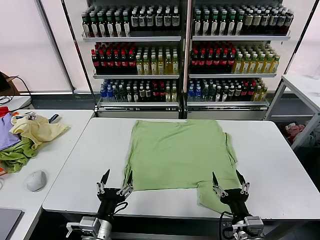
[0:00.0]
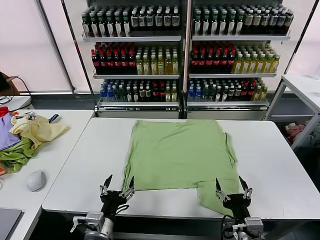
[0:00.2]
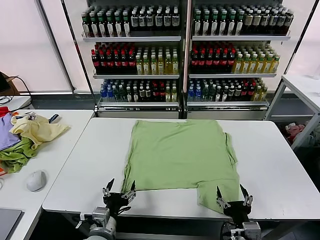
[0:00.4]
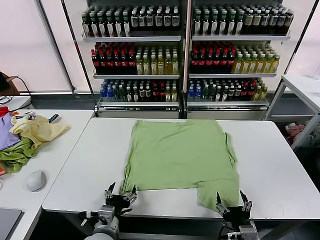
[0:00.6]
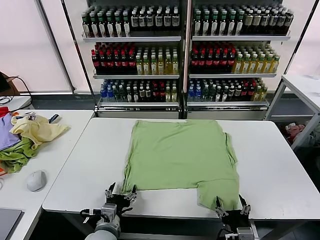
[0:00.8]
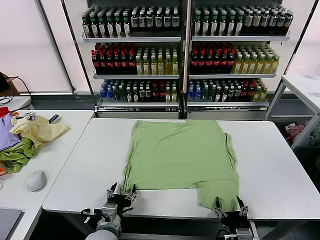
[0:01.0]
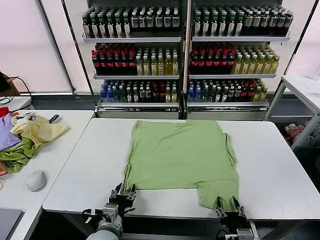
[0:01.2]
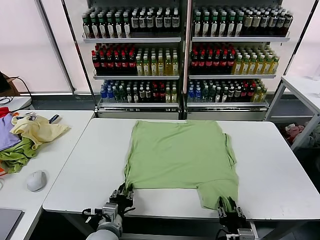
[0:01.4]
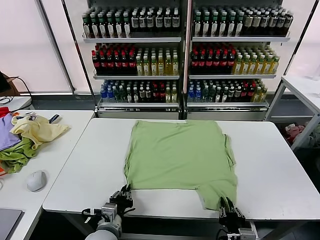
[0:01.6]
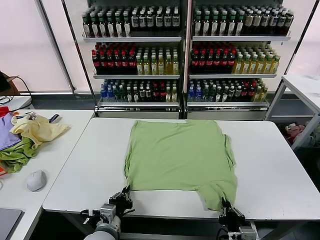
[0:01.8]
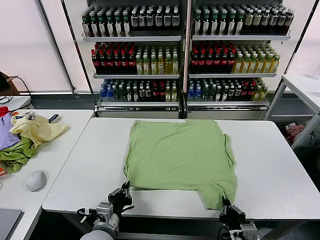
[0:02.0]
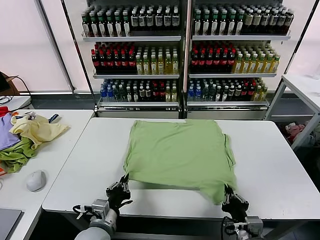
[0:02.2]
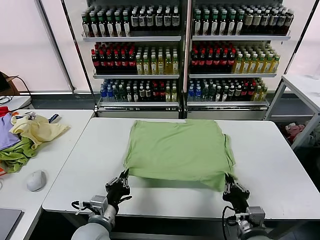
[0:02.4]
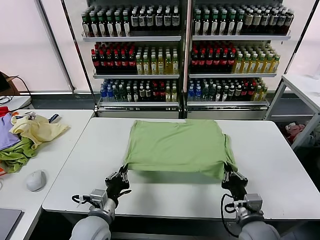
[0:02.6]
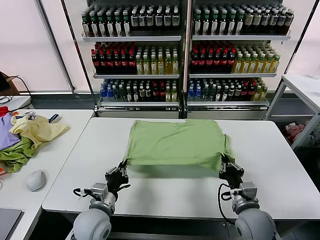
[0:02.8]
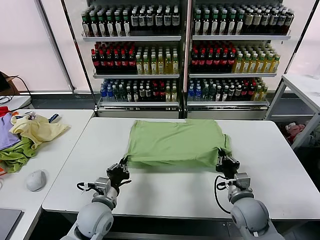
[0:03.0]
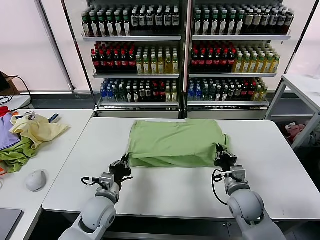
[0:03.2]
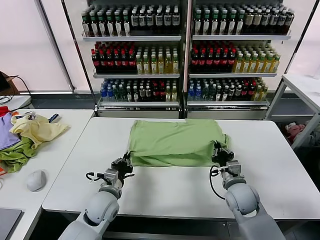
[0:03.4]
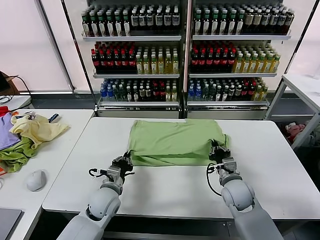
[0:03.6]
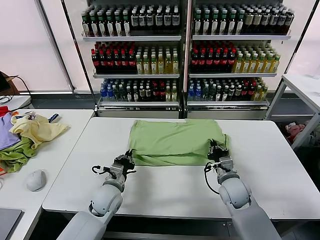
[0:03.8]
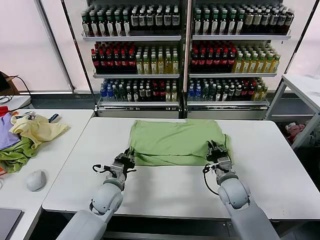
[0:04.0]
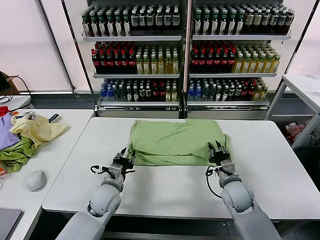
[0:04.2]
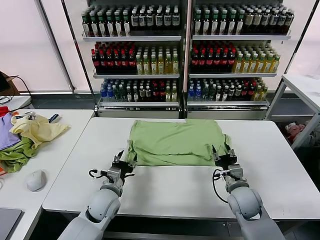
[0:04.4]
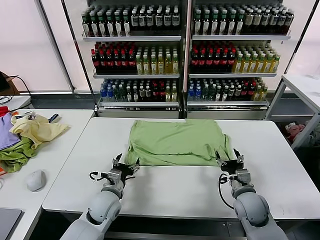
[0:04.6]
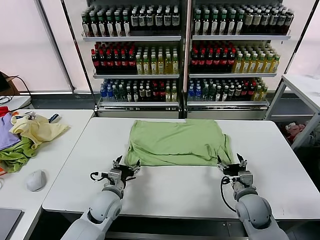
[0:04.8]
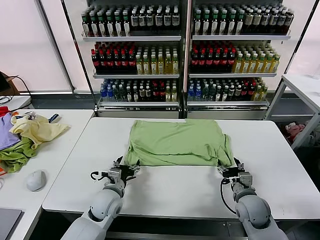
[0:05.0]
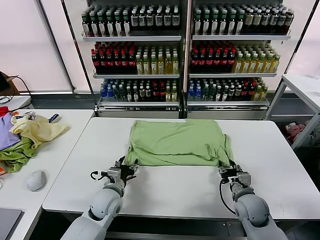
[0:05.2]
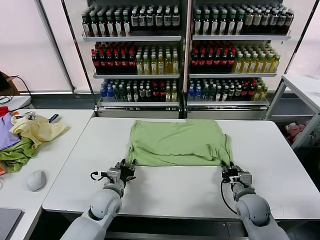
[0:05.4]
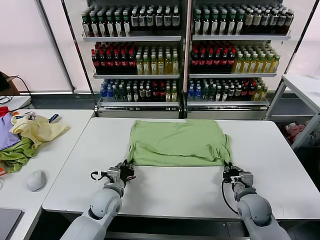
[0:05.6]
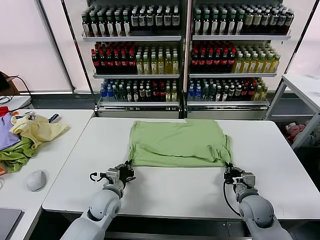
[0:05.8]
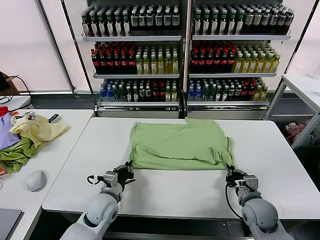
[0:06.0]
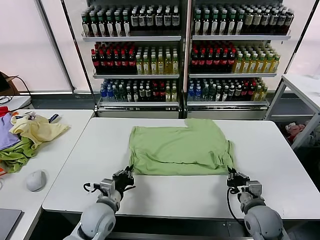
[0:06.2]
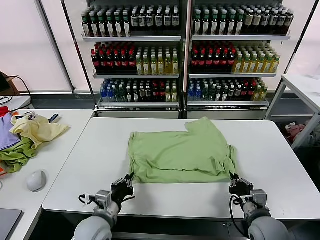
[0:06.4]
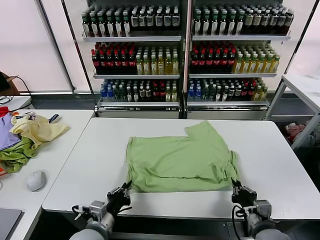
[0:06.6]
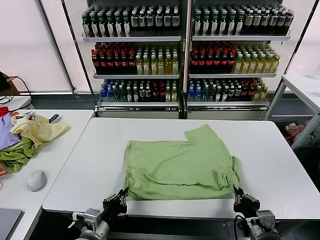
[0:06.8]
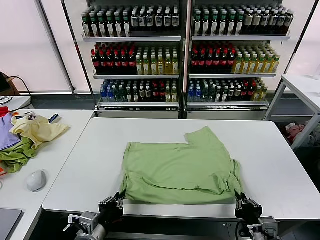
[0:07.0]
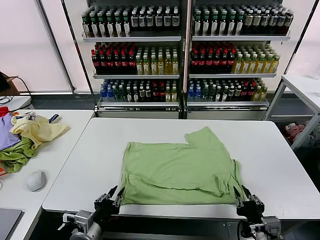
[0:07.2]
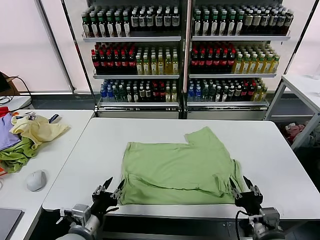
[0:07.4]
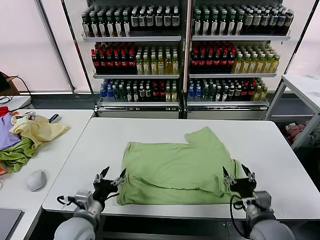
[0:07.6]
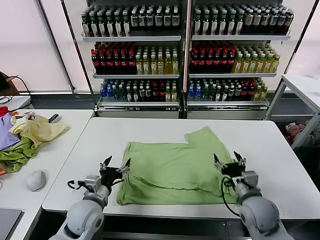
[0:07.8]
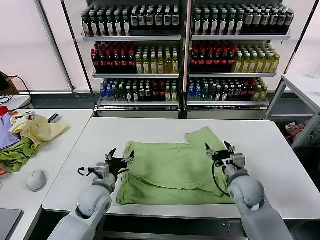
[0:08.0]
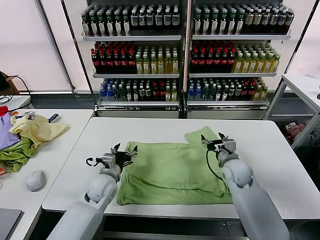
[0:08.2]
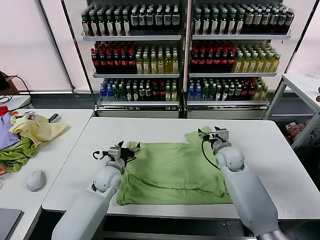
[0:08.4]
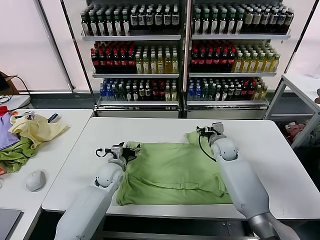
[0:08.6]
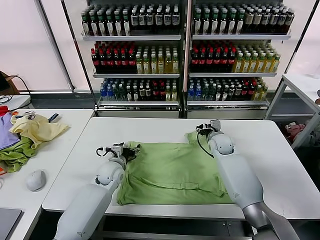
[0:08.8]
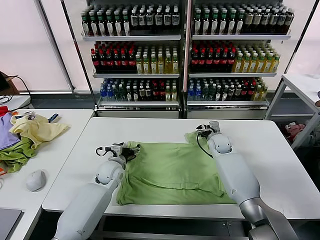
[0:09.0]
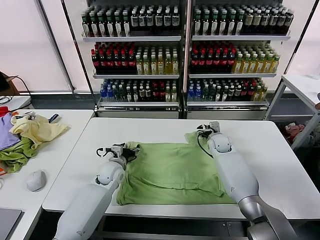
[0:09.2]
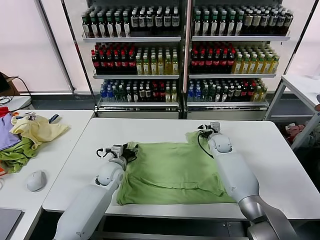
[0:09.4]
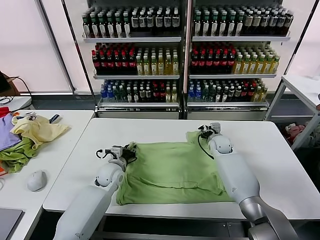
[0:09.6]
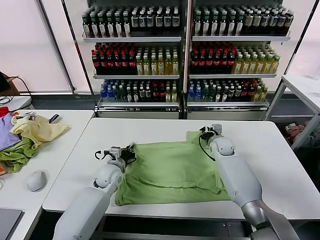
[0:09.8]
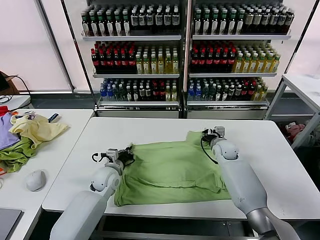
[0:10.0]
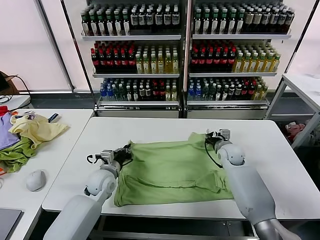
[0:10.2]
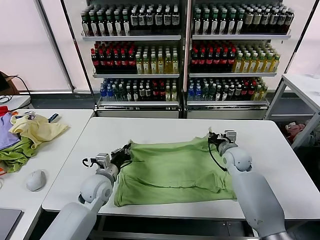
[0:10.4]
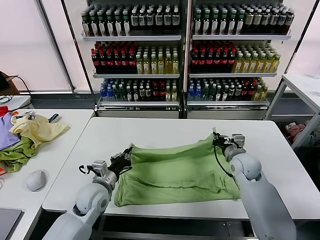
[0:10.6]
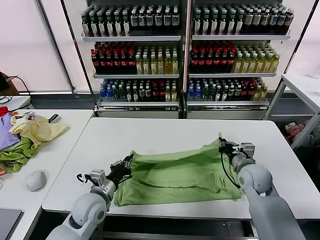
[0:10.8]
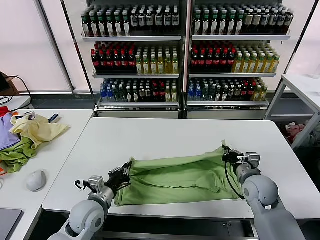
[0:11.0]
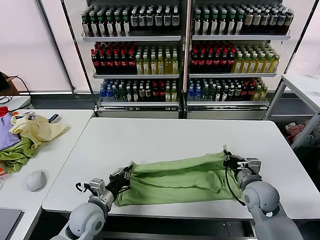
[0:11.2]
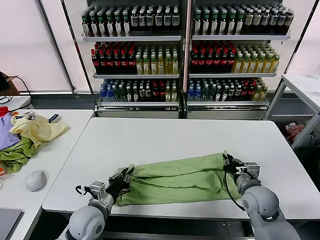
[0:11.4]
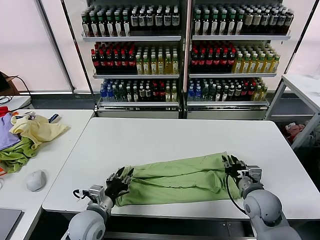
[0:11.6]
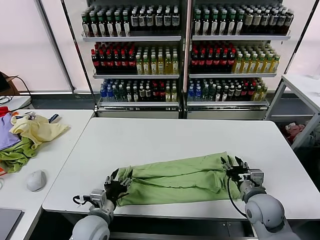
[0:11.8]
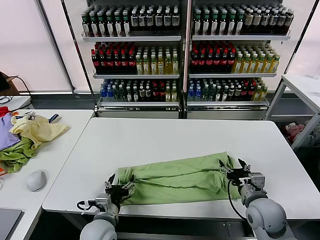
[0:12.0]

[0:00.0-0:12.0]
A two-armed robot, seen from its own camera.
Task of the whole recording: fold and organize the clothes.
Step, 0:00.0 to 0:01.8: use both grippers simultaneously to clamp the lower edge of the clothing fabric.
Step, 0:02.0 to 0:04.2: use both grippers to drag the lower edge of the fabric forward and fold it over the upper edge.
Step, 0:04.4 to 0:07.2: Drag the clothes downward with both gripper.
Step, 0:07.4 to 0:10.0: use both grippers simultaneously to clamp the upper edge of the clothing fabric.
Step, 0:10.2 to 0:11.6: use both grippers to drag the upper edge of the fabric backward and fold it over the lower edge.
0:01.6 to 0:03.0: The right gripper moves forward, some 15 cm; the left gripper heads forward, covering approximately 5 cm.
0:03.0 to 0:04.4: The right gripper opens up. Meanwhile the left gripper goes approximately 5 cm forward, and opens.
0:04.4 to 0:06.0: The right gripper closes up, while the left gripper closes up.
0:06.0 to 0:07.6: The left gripper heads backward, covering roughly 10 cm, and opens up. The right gripper heads upward and backward, covering some 5 cm, and opens up.
0:07.6 to 0:09.0: The two grippers go about 30 cm forward.
0:09.0 to 0:10.4: The grippers both shift backward by some 10 cm. The right gripper closes up. The left gripper closes its fingers.
0:10.4 to 0:12.0: Both grippers travel together backward, approximately 15 cm. The right gripper opens its fingers; the left gripper opens.

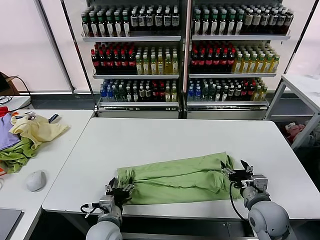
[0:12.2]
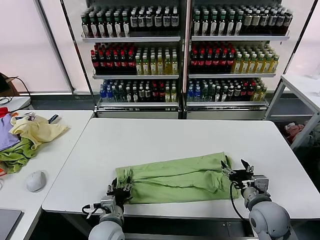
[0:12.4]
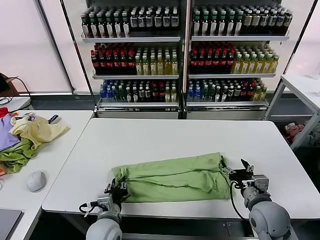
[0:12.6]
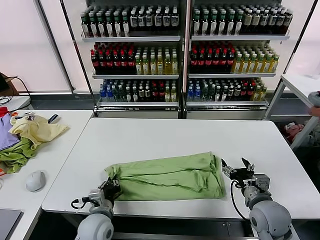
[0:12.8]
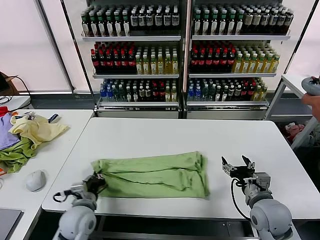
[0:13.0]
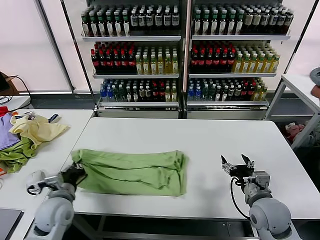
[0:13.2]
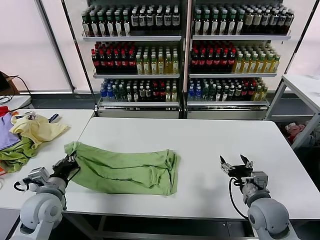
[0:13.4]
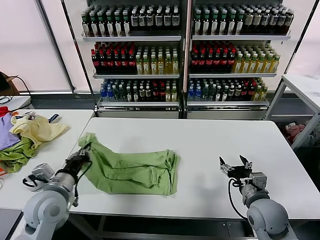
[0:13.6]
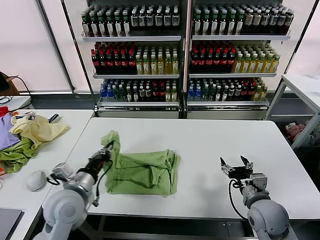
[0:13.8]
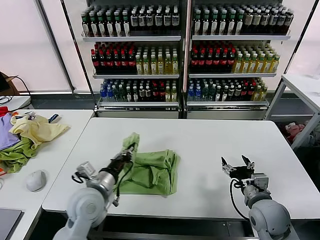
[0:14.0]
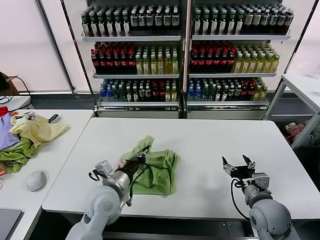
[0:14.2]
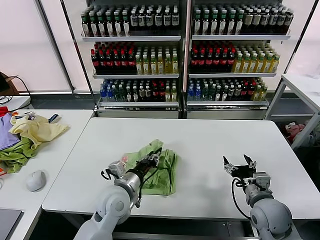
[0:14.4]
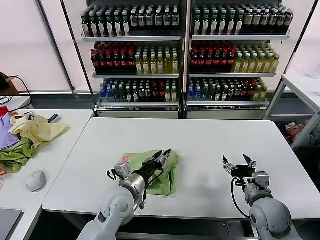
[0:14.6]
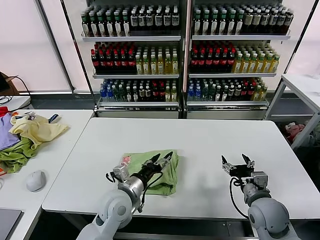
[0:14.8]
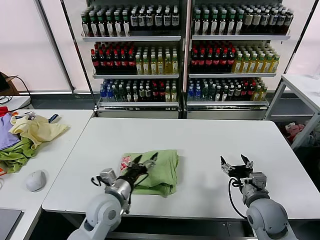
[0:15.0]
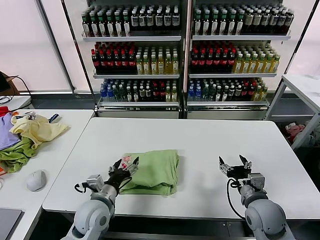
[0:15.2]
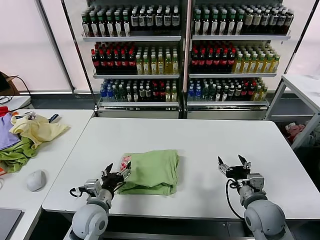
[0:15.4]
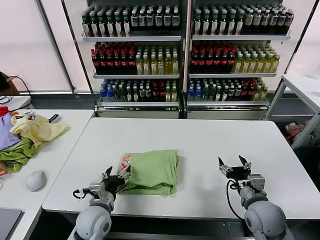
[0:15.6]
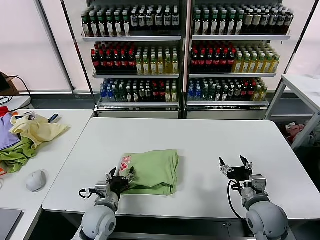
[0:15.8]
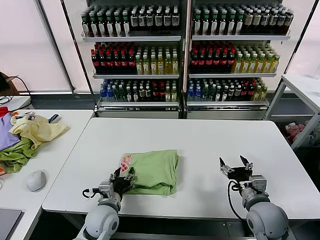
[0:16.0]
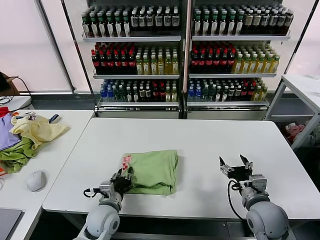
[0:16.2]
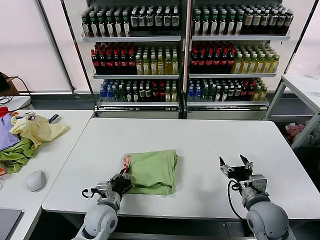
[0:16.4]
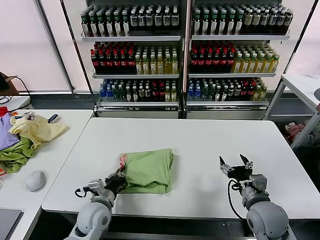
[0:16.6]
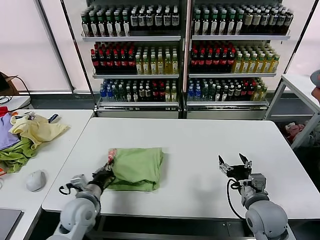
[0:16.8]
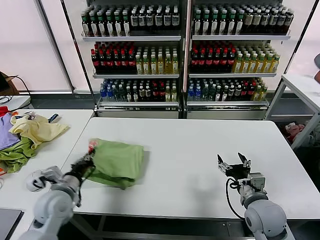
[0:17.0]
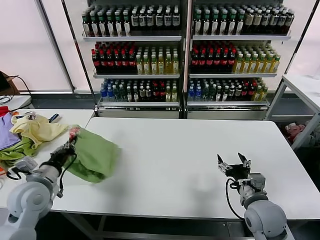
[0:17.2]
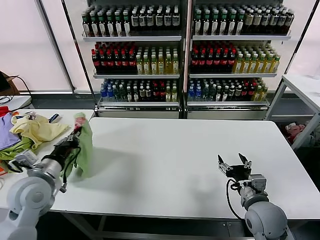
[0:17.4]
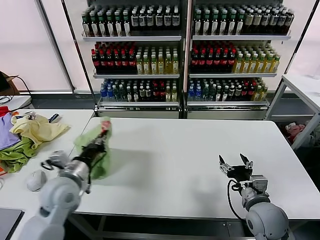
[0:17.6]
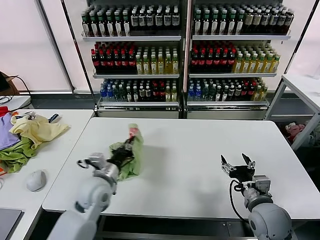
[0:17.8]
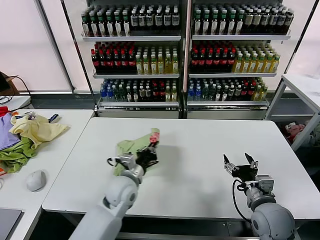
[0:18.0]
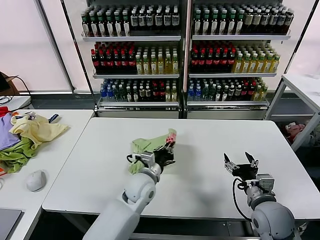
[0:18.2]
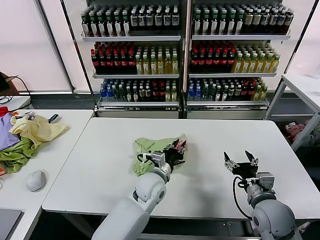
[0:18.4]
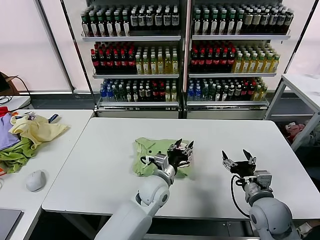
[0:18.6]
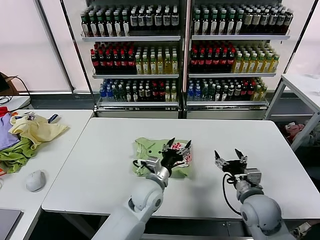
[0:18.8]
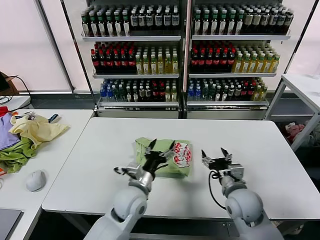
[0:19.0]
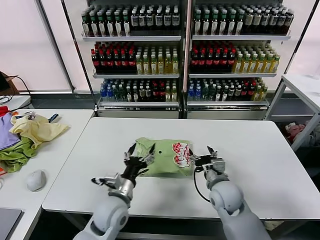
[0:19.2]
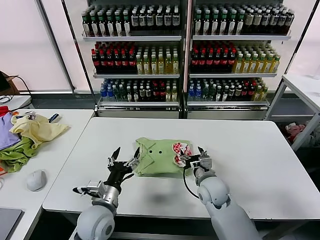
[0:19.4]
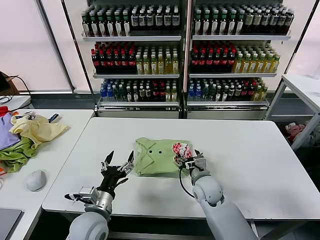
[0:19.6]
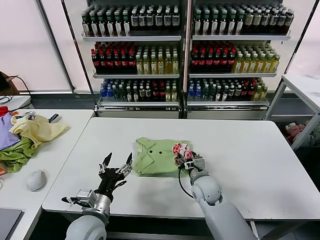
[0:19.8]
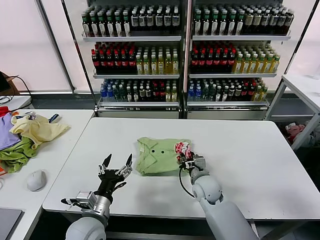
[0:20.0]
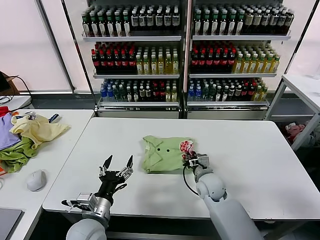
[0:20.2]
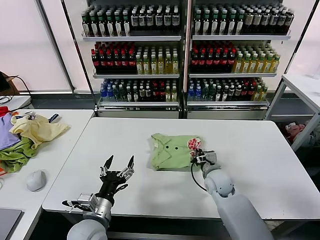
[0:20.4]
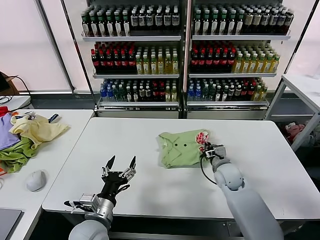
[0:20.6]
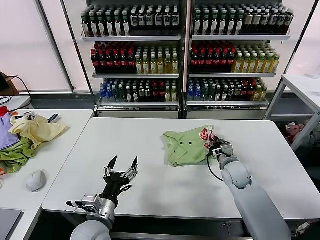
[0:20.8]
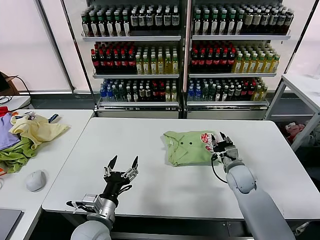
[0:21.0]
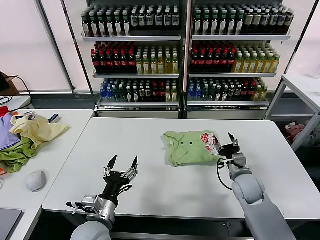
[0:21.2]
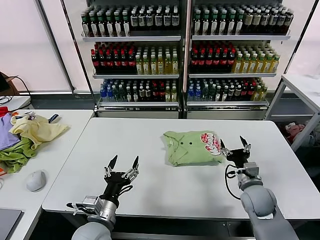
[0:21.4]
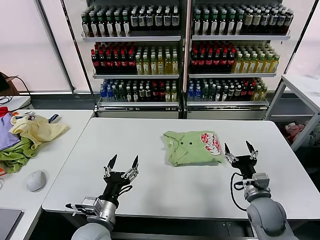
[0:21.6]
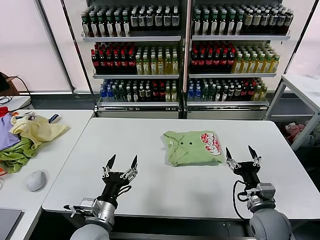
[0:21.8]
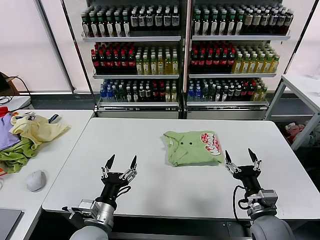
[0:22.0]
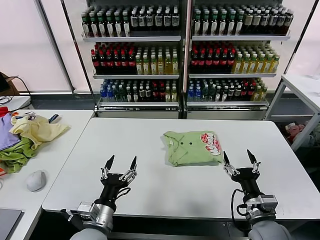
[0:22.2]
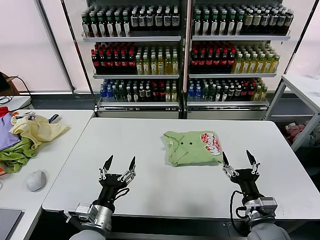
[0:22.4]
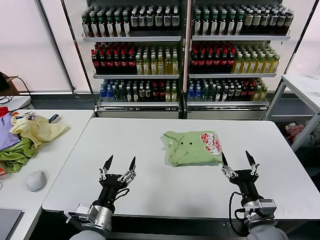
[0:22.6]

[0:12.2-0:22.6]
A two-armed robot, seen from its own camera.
Task of the whole recording: fold and organize the clothes.
Step, 0:12.8 to 0:14.6: use the left gripper to drag the left edge of the fabric to the left and folds it over the right edge.
Step, 0:14.8 to 0:18.4: Flip the folded clothes over with left gripper.
Step, 0:18.6 to 0:21.0: Drag the clothes to the center of the table.
0:12.2 to 0:13.6: The left gripper is displaced to the left and upward by approximately 20 cm, and closes up.
0:13.6 to 0:15.2: The left gripper moves to the right and downward, approximately 15 cm, and opens its fingers.
0:15.2 to 0:16.6: The left gripper closes up.
0:16.6 to 0:18.2: The left gripper travels to the right, forward and upward by some 15 cm.
0:18.2 to 0:19.6: The left gripper travels backward and to the left by approximately 15 cm, and opens up, while the right gripper heads to the left, forward and downward, covering roughly 20 cm.
0:19.6 to 0:21.2: The right gripper moves to the right, approximately 15 cm, and closes, then reopens.
0:21.2 to 0:22.6: The right gripper goes approximately 20 cm backward.
